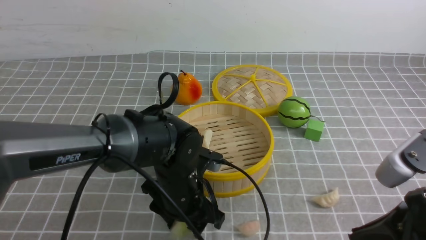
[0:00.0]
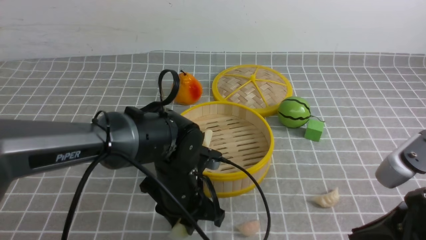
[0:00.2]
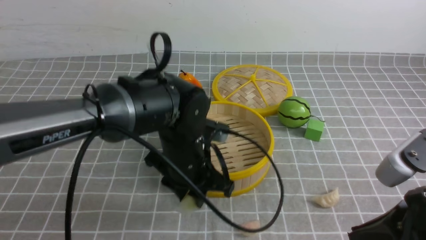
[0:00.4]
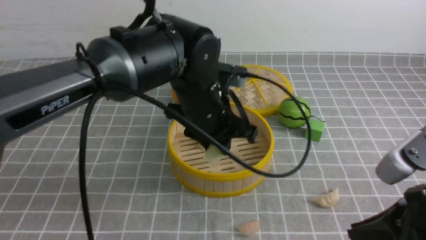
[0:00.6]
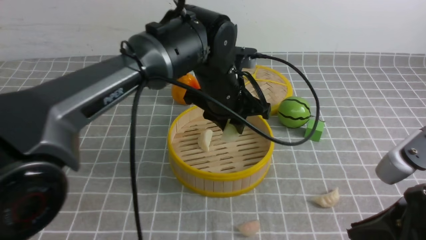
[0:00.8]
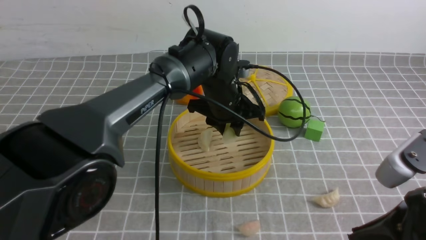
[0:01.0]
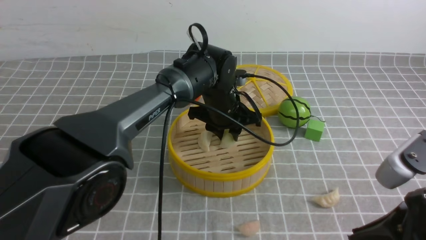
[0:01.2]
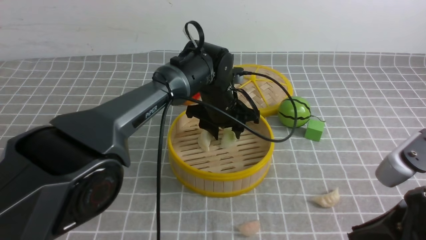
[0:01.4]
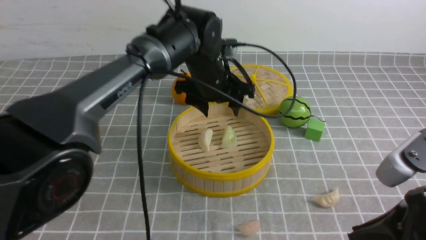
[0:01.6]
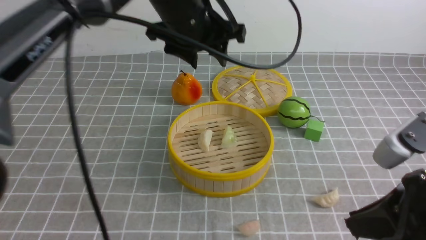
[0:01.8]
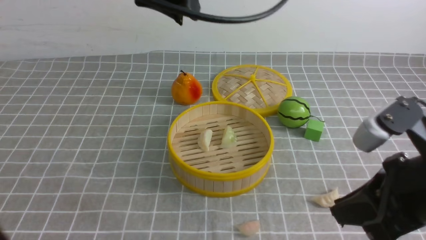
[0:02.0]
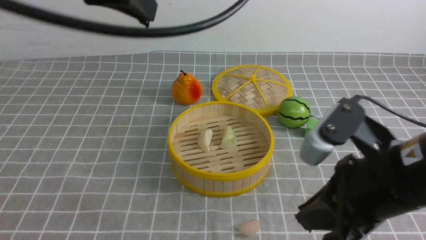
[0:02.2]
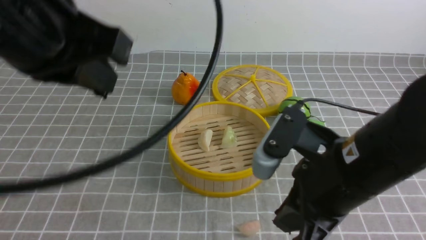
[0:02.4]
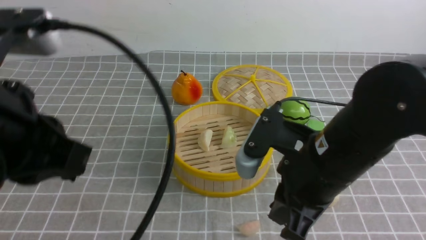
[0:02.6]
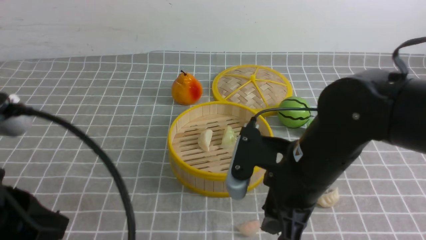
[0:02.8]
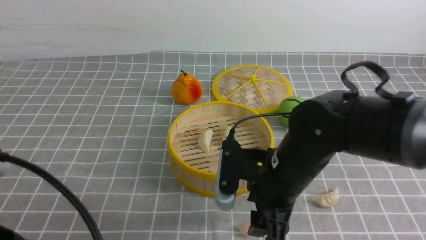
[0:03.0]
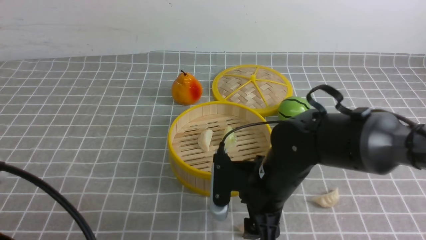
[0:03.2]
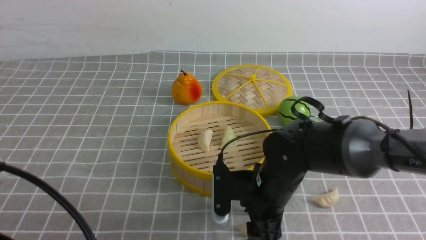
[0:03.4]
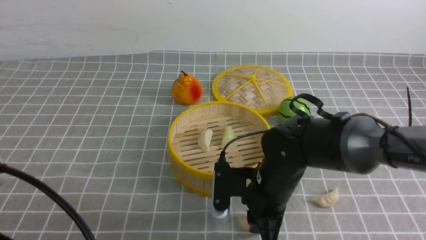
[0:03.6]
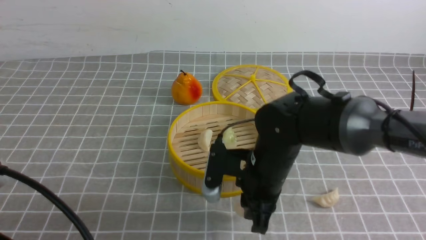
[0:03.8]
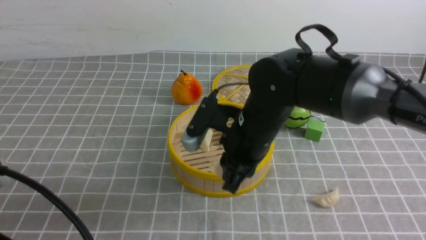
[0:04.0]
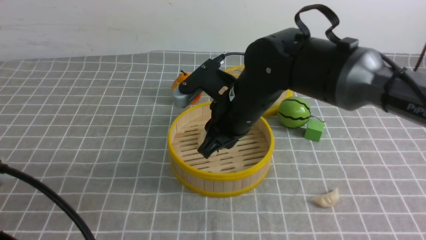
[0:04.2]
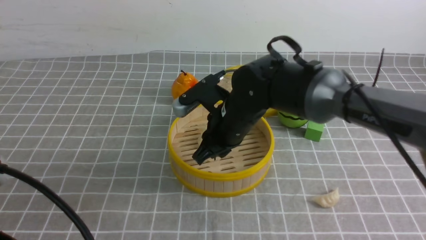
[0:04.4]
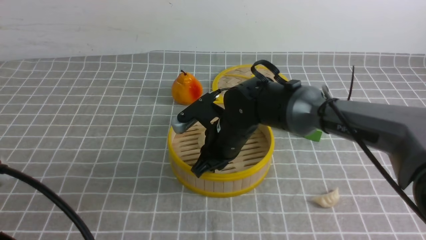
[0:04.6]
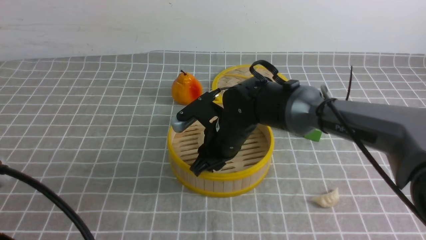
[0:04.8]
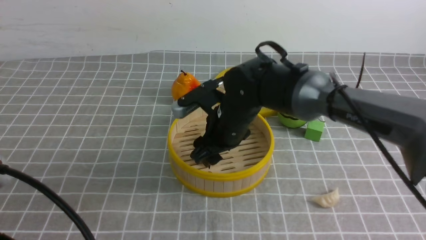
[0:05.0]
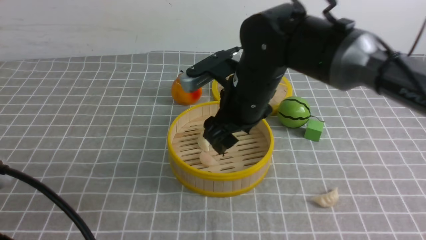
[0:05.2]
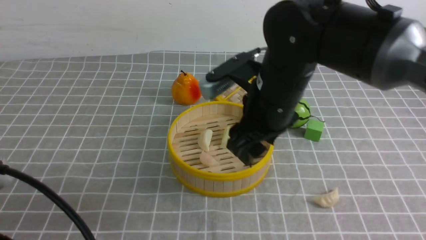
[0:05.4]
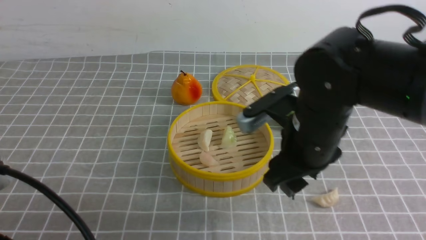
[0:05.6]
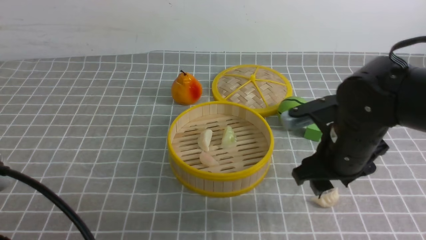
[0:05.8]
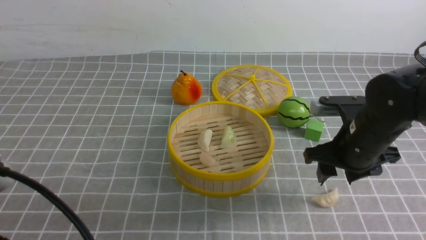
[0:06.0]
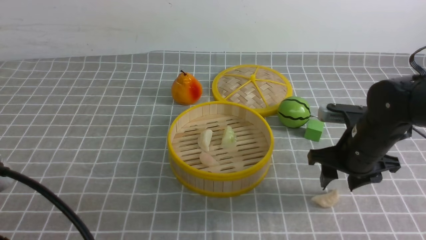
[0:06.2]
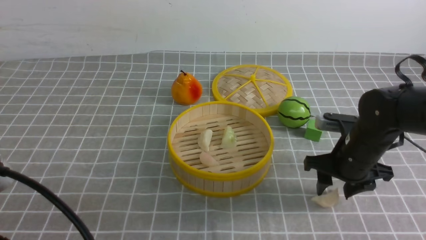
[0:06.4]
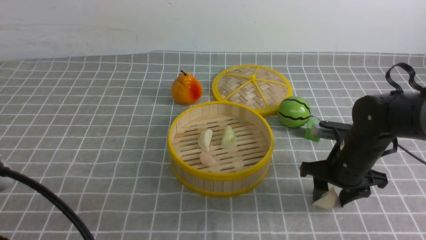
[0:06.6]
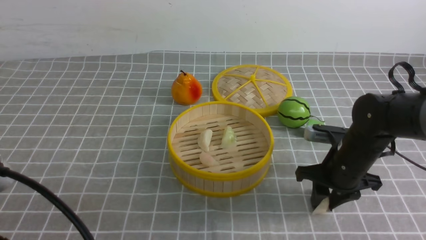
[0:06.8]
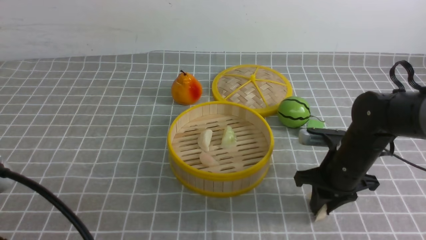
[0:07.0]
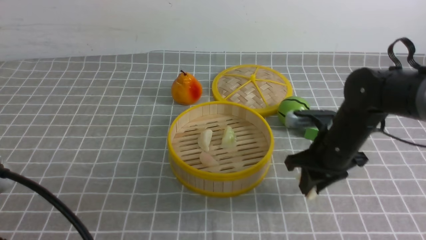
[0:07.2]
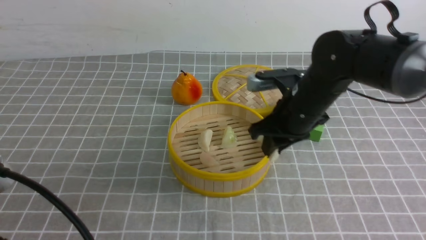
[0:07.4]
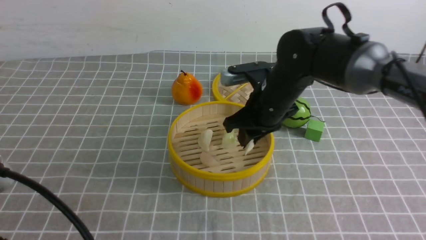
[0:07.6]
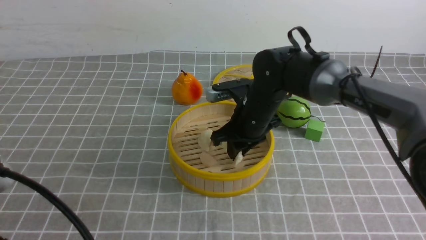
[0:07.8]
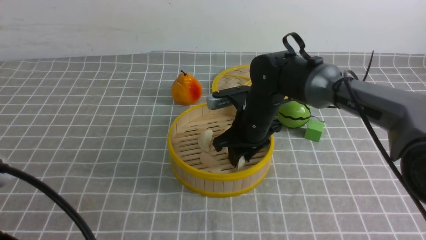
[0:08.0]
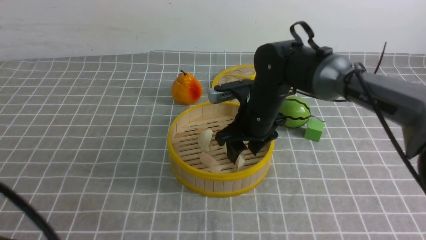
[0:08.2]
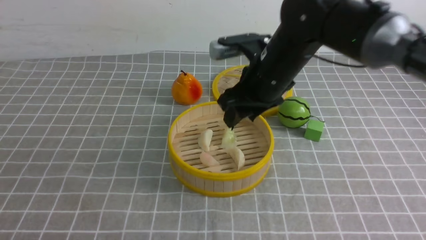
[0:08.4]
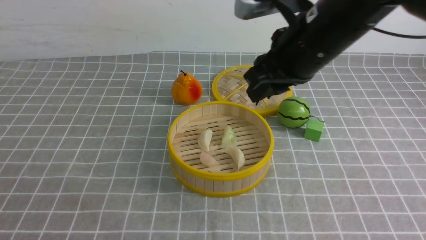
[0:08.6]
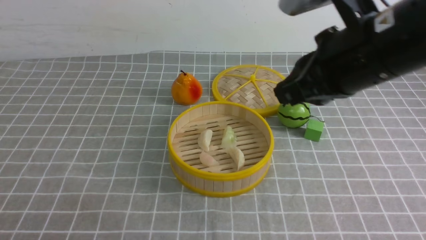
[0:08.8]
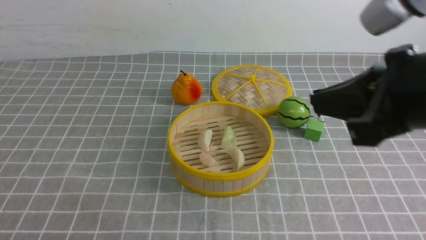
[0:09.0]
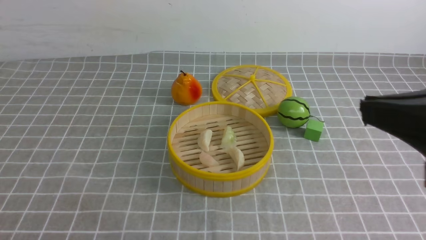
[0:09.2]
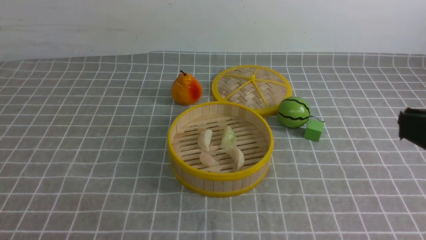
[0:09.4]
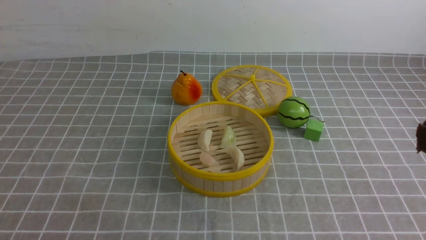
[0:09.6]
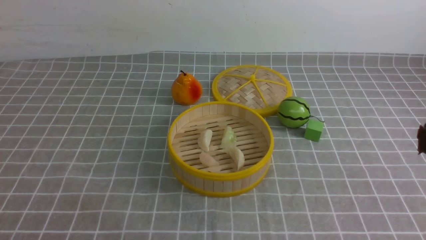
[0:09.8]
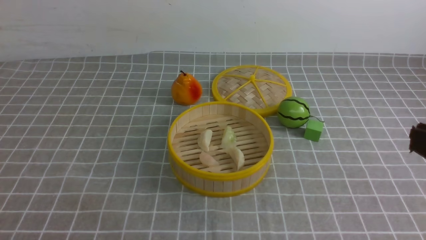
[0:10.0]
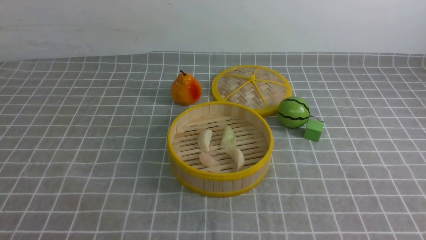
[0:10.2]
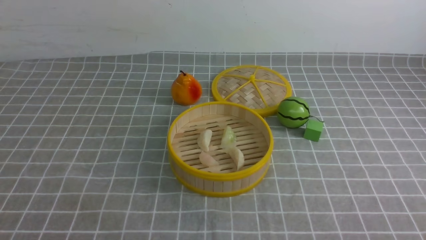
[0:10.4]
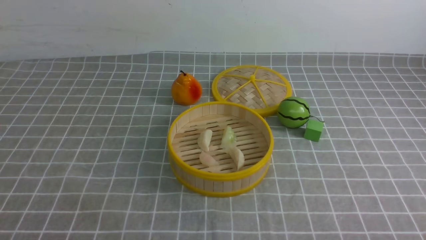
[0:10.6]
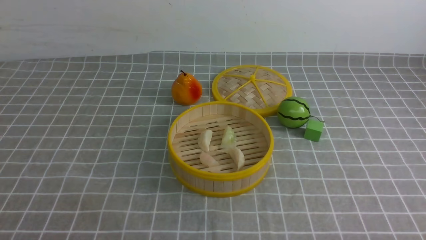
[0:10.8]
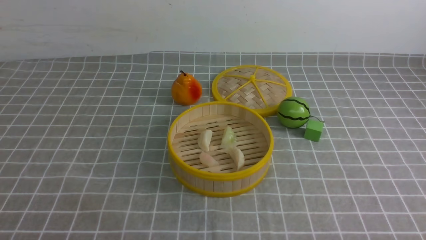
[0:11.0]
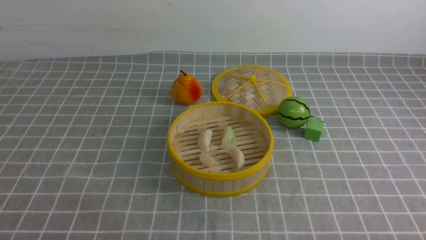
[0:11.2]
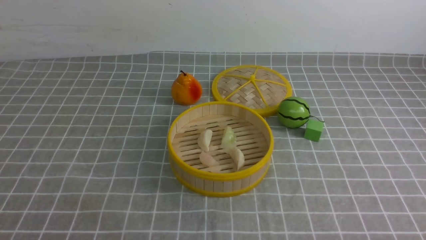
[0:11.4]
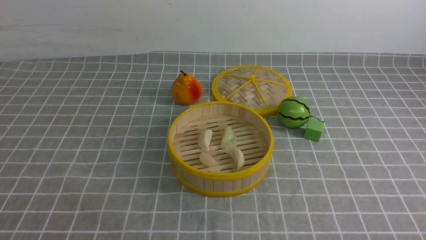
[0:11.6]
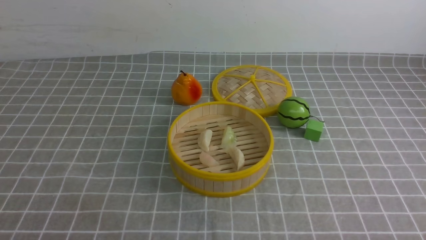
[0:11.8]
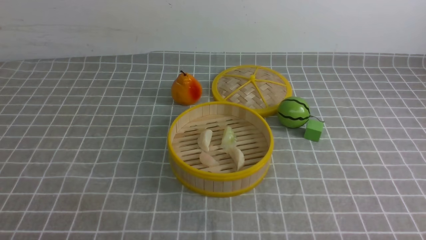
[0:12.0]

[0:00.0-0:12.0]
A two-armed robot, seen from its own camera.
Task of the whole recording: put the dumplings into the steamer on the table with the grey tablecloth.
Step, 0:00.4 to 0:01.6: use the left arm to put the dumpling into the steamer.
Step, 0:01.8 to 0:03.6: use the right arm to grab a dumpling.
Step, 0:03.8 to 0:05.0: use the right arm to put the dumpling into the steamer.
Step, 0:05.2 to 0:07.0: use the right arm to grab a dumpling.
Step, 0:07.2 to 0:08.4: use the right arm to put the dumpling into the steamer.
0:00.0 to 0:01.6: The left gripper is displaced forward and upward by about 20 cm.
0:01.6 to 0:03.0: The left gripper is displaced backward and to the left by some 40 cm, and closes; the right gripper heads to the left, forward and downward, covering roughly 20 cm, and opens up.
0:03.0 to 0:04.4: The right gripper moves forward and to the left, approximately 10 cm, and closes its fingers.
0:04.4 to 0:06.0: The right gripper travels to the right by some 15 cm, and opens up.
0:06.0 to 0:07.6: The right gripper goes approximately 15 cm to the left and forward, and closes its fingers.
0:07.6 to 0:09.0: The right gripper travels backward, upward and to the right by some 30 cm, and closes its fingers. Meanwhile the left gripper moves backward, approximately 5 cm.
0:09.0 to 0:10.4: The right gripper moves downward, to the right and backward, roughly 25 cm.

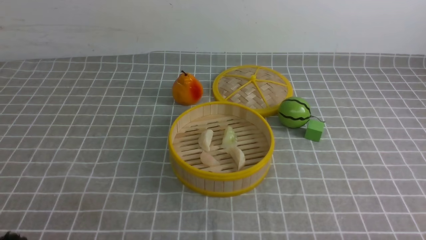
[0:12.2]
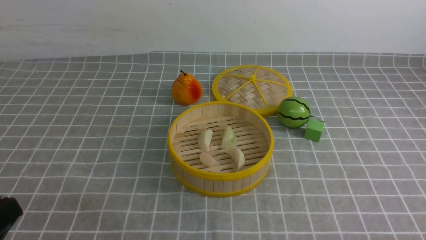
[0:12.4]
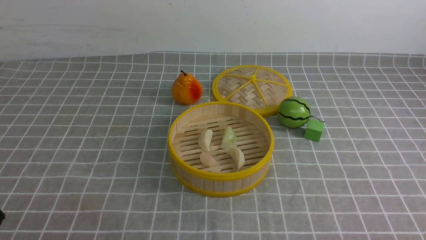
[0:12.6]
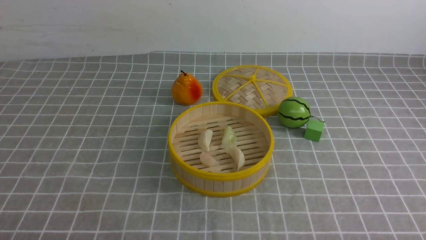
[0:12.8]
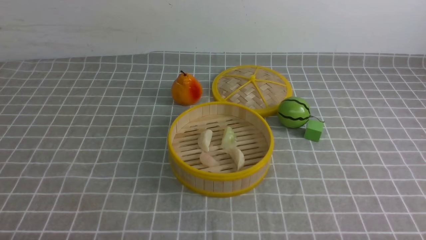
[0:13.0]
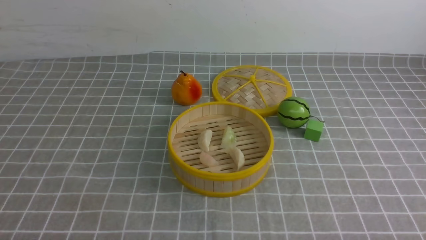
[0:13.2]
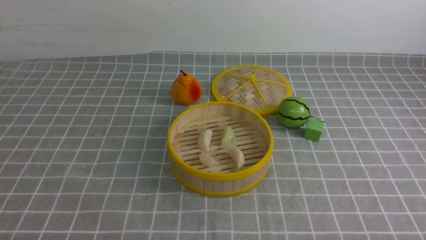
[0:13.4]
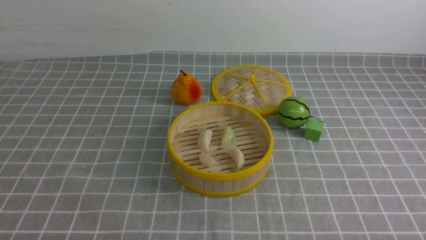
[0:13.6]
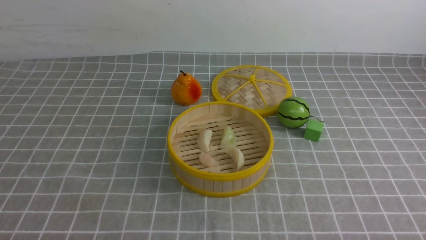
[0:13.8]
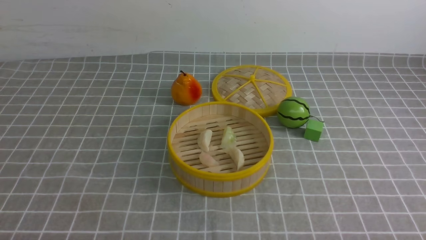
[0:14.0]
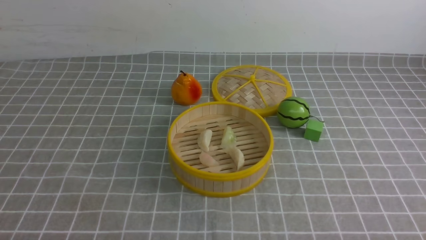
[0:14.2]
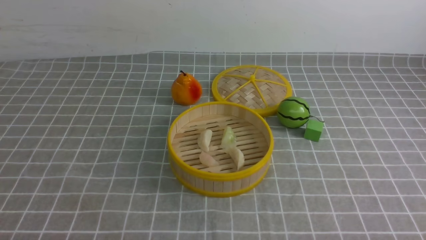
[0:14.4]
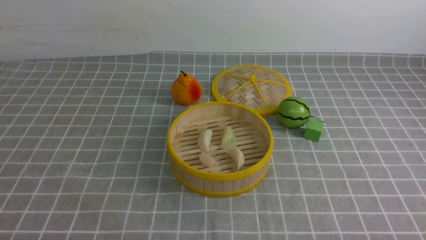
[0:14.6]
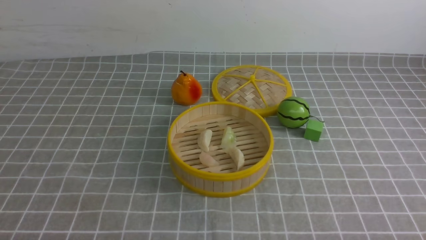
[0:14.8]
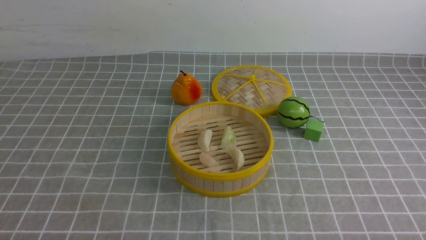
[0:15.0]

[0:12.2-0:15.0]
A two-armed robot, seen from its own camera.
Task of the whole recording: put the dumplings into the steamer on the table with the grey tablecloth.
0:13.6 to 0:15.0: The two grippers keep their place.

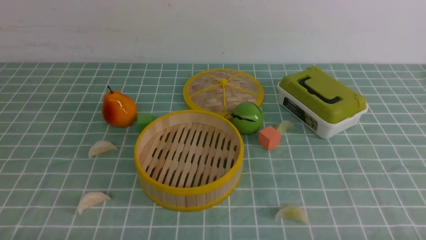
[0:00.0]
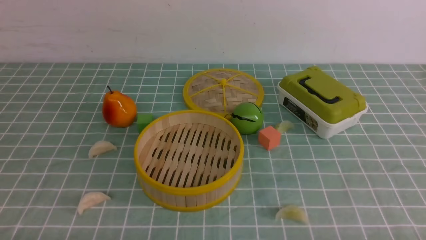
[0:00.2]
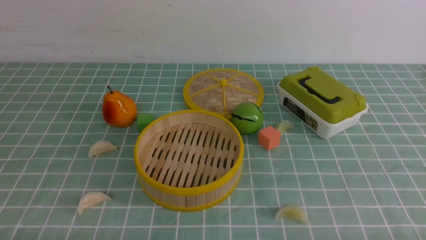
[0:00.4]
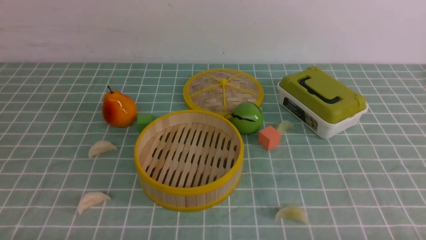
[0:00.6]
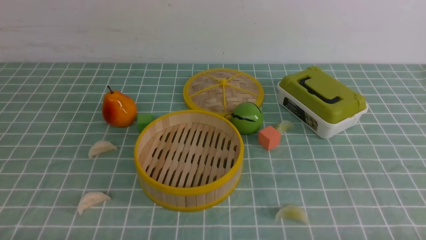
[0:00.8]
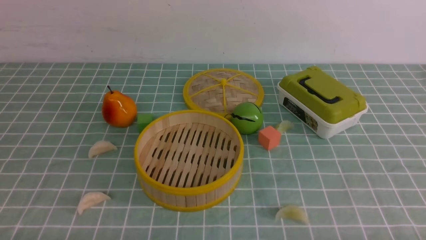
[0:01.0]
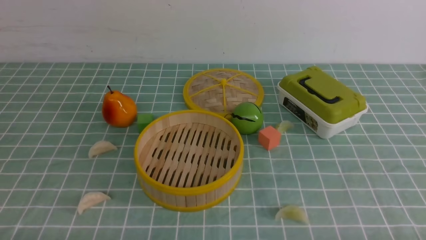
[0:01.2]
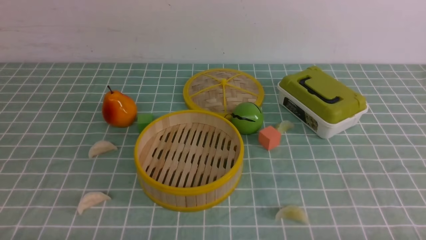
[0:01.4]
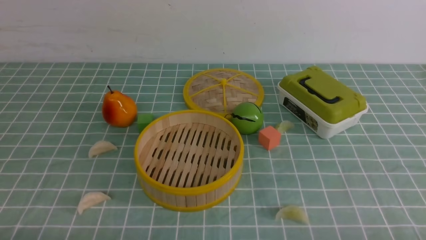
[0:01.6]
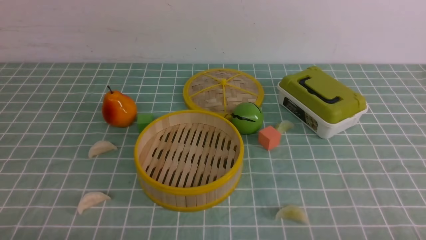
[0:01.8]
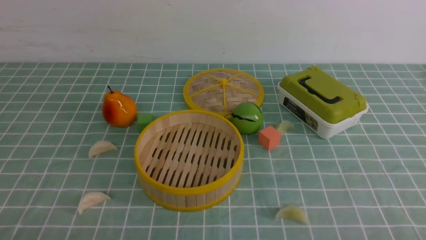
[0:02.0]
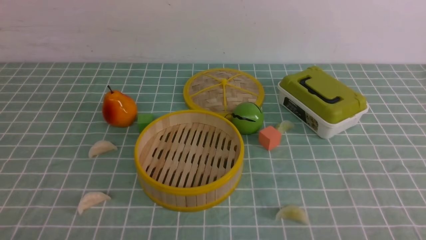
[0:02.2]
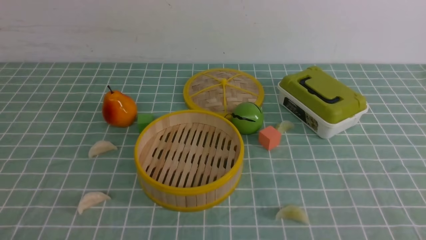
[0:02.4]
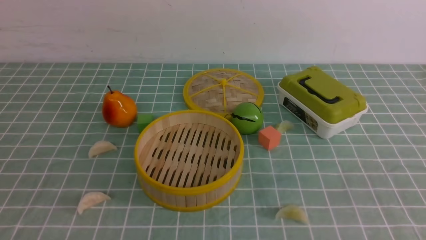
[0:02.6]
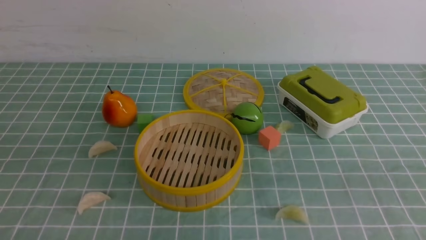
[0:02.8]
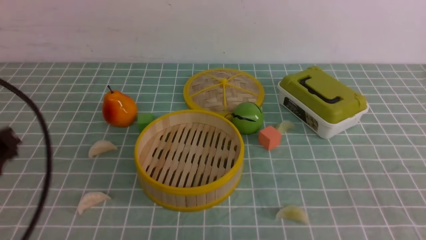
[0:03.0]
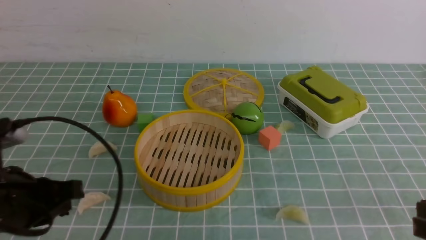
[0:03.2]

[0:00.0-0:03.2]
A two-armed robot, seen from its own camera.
Task of the whole recording: put the dumplings into the steamer on the table with the blue tablecloth.
0:01.6 to 0:03.2: The left gripper is displaced forward and upward by about 15 cm, and closes up.
